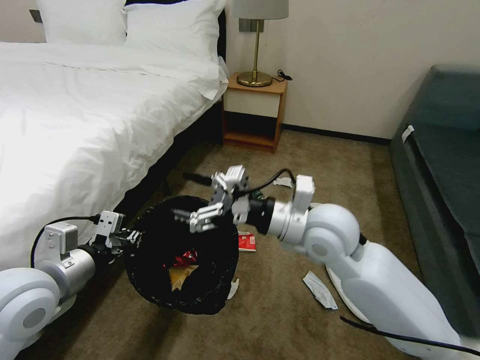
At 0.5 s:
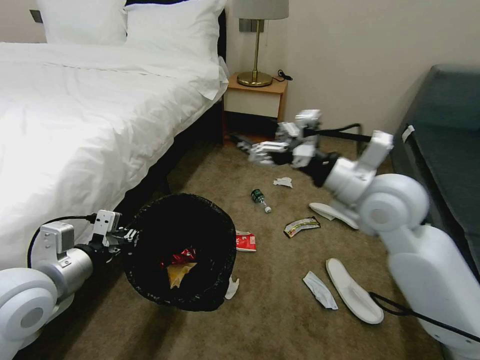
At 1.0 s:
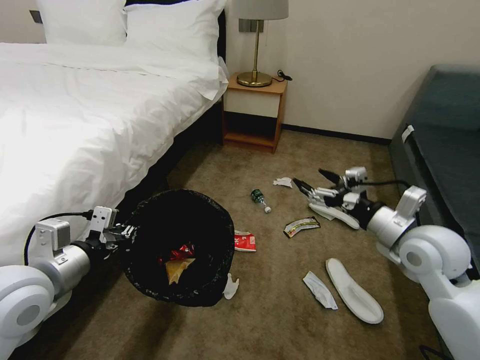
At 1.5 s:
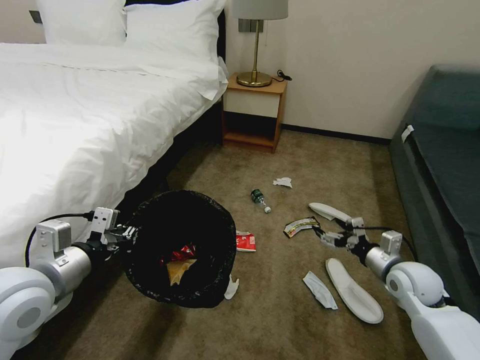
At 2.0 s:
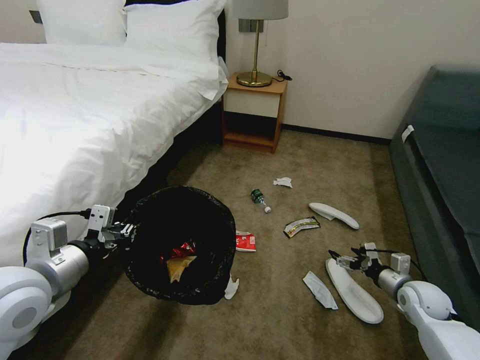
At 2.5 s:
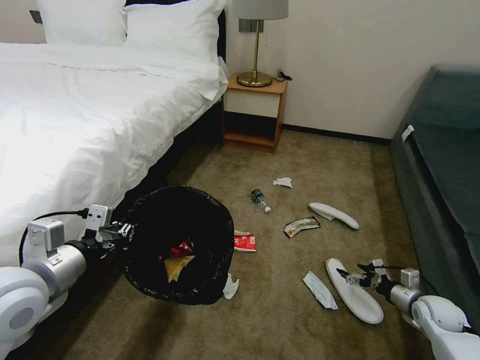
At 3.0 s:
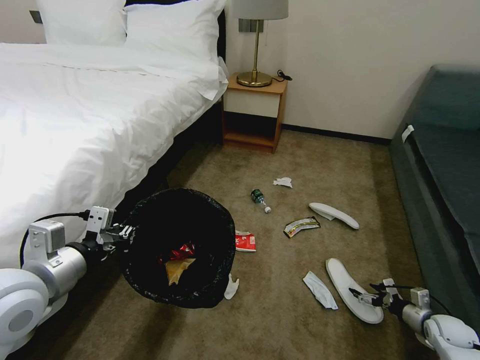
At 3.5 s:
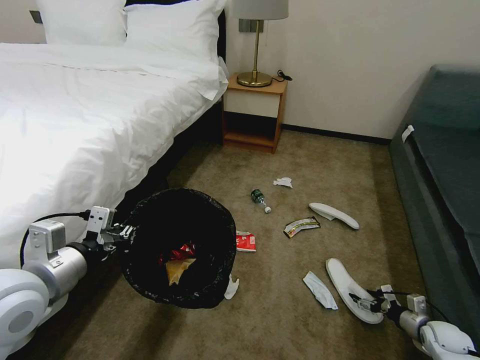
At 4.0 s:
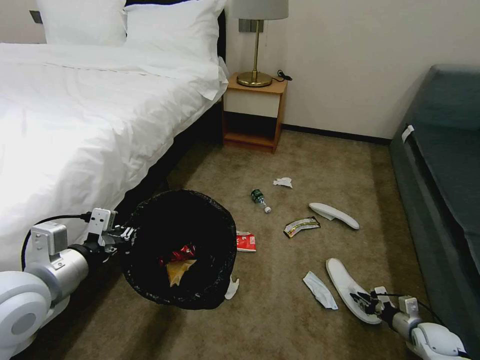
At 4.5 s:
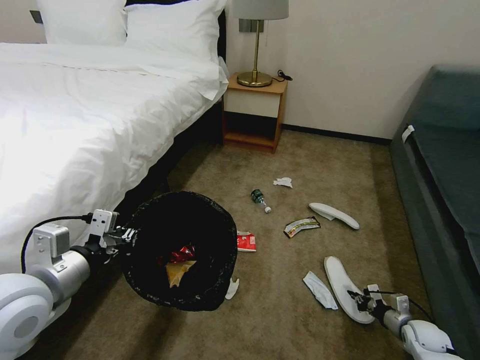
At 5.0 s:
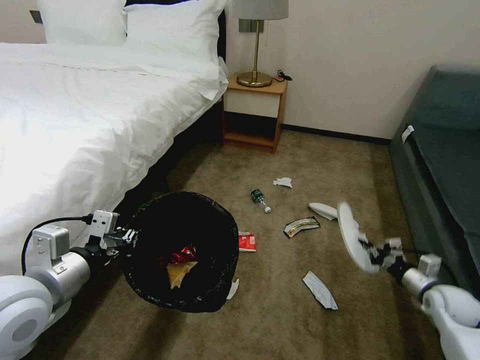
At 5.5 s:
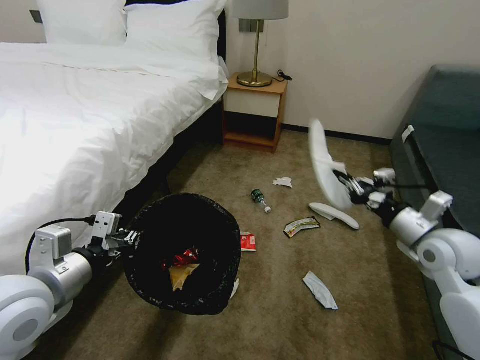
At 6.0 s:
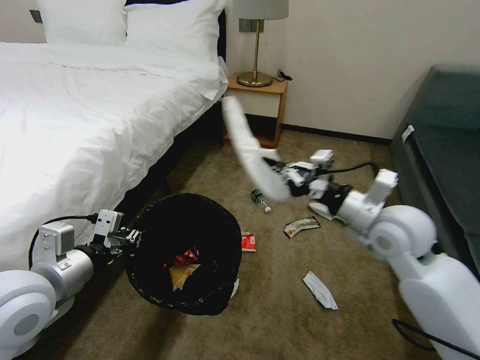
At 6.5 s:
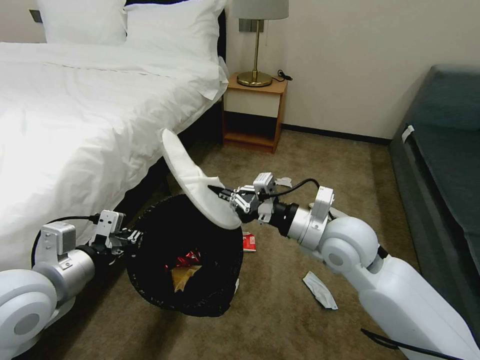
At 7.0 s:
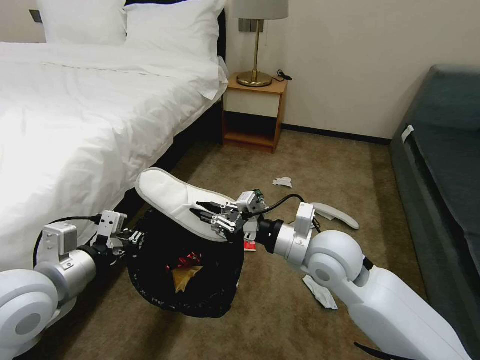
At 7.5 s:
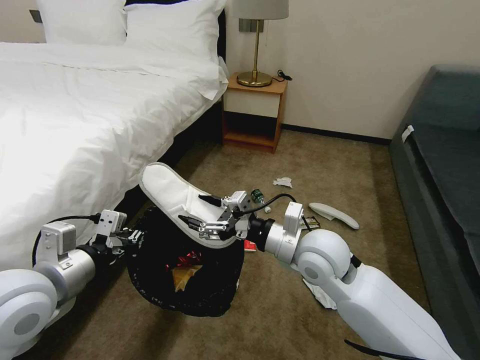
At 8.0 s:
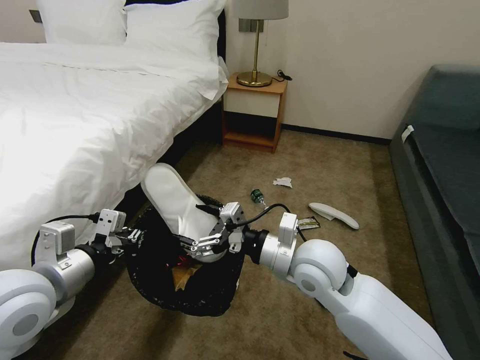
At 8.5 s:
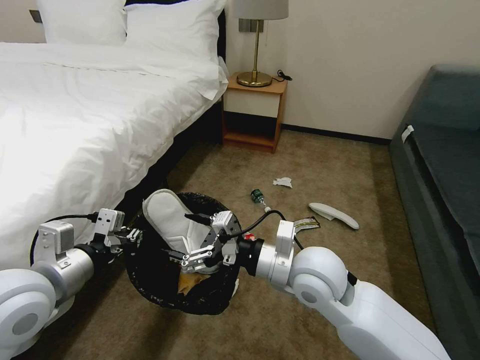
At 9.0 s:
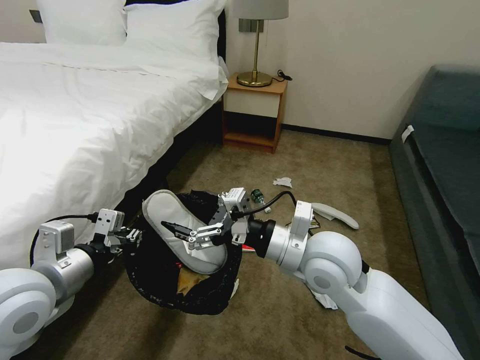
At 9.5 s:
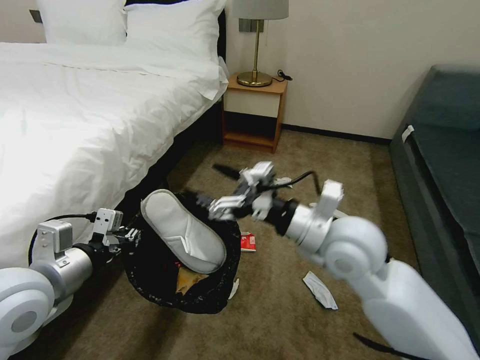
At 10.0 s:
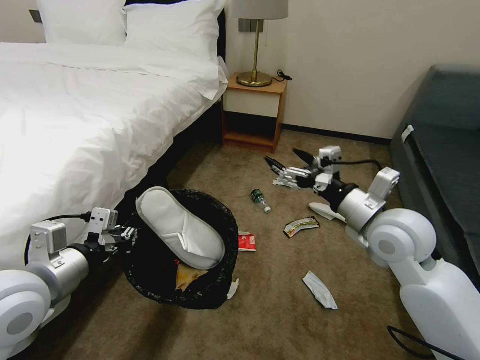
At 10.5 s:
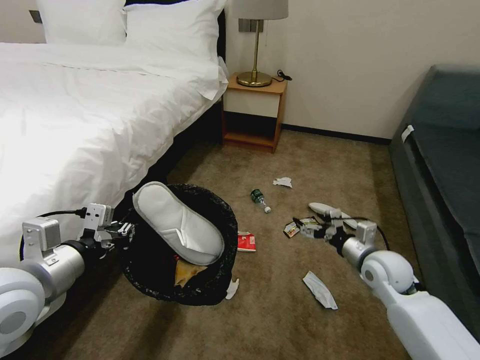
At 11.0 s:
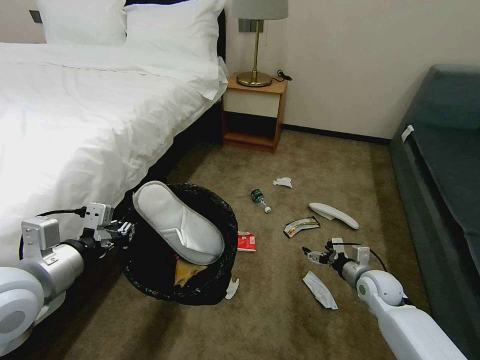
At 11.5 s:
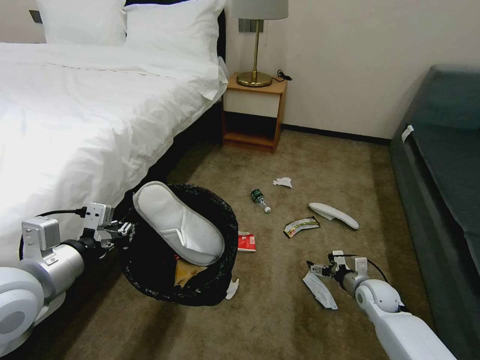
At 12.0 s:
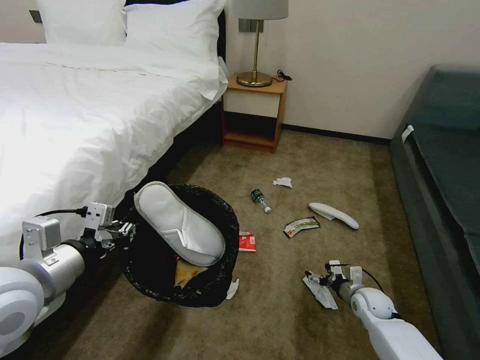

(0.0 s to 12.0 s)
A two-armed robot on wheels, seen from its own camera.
Task of the whole recording: Pick up the trash bin, then pick up the garbage on the floor and place it into the trash bin.
0.0 s - 2.0 s: The right gripper heads to the right and downward, covering some 40 cm.
2.0 s - 4.0 s: The right gripper moves downward, to the right and backward, approximately 15 cm, and closes.
4.0 s - 6.0 s: The right gripper shifts about 40 cm upward and to the left.
6.0 s - 8.0 s: The right gripper moves to the left and downward, about 15 cm, and opens its fingers.
8.0 s - 10.0 s: The right gripper travels to the right by about 15 cm.
10.0 s - 12.0 s: The right gripper moves downward, roughly 35 cm.

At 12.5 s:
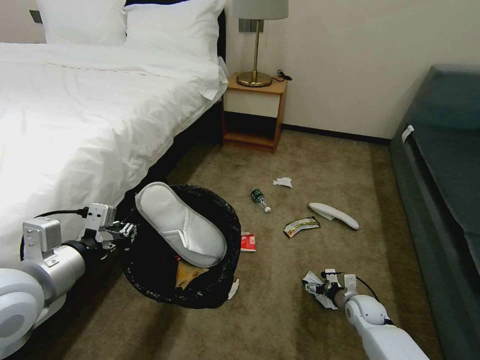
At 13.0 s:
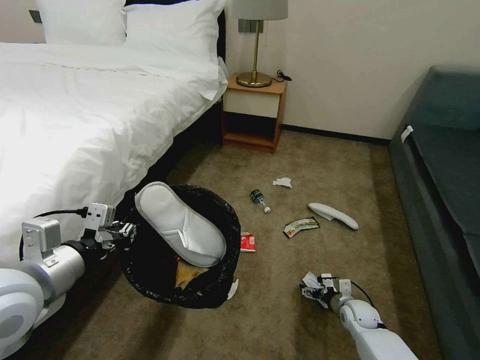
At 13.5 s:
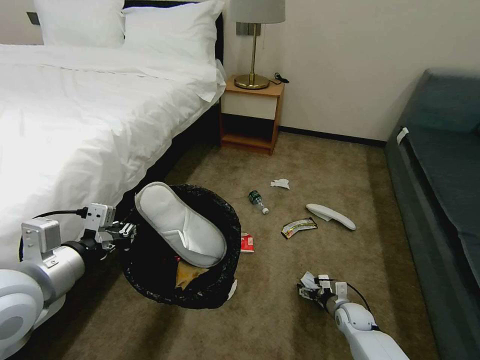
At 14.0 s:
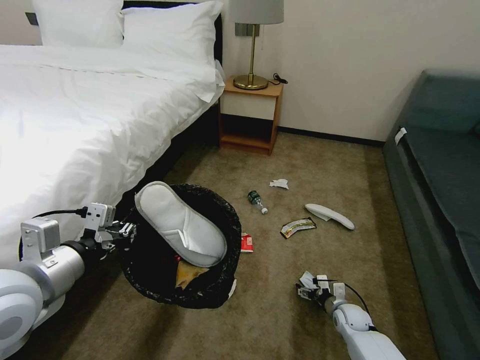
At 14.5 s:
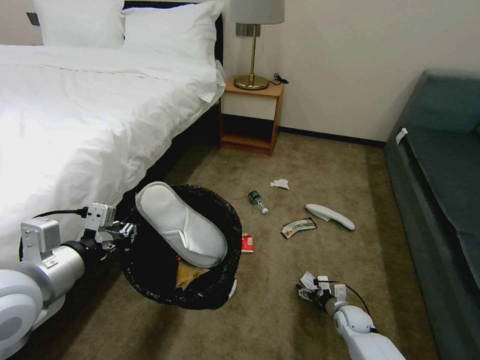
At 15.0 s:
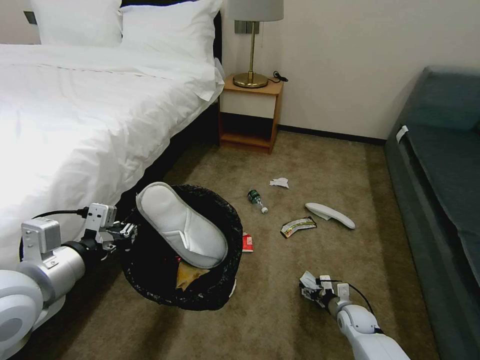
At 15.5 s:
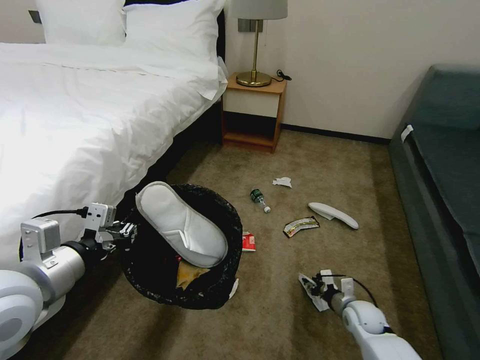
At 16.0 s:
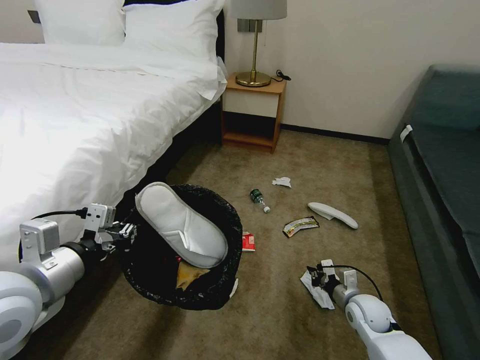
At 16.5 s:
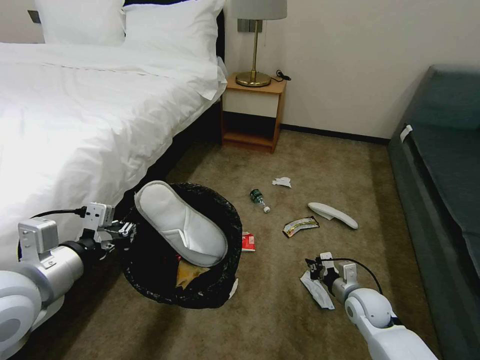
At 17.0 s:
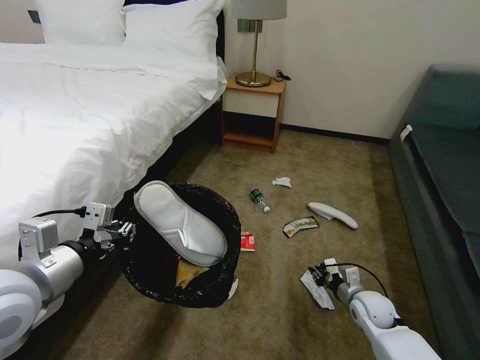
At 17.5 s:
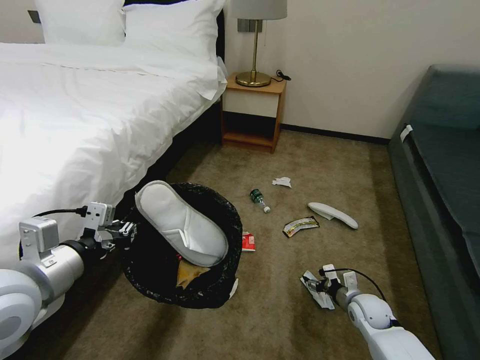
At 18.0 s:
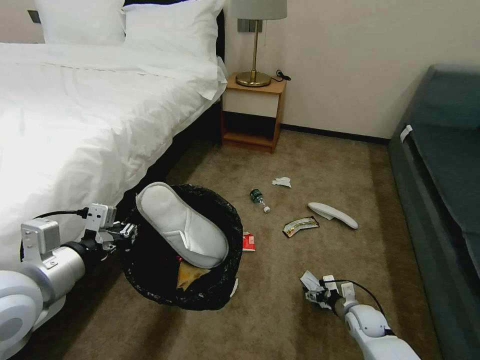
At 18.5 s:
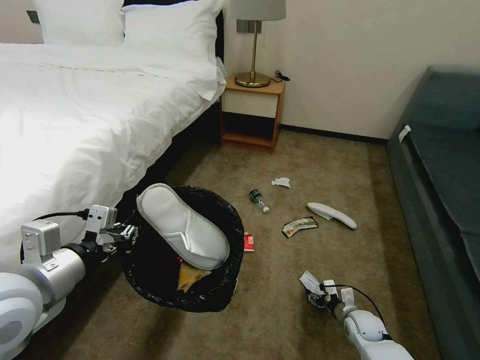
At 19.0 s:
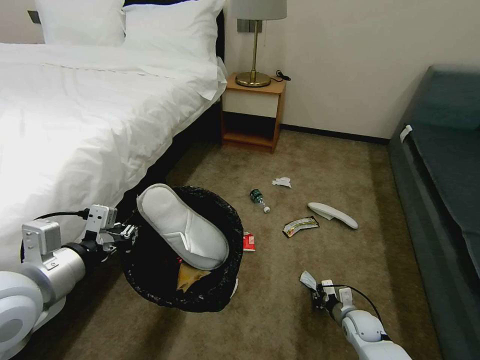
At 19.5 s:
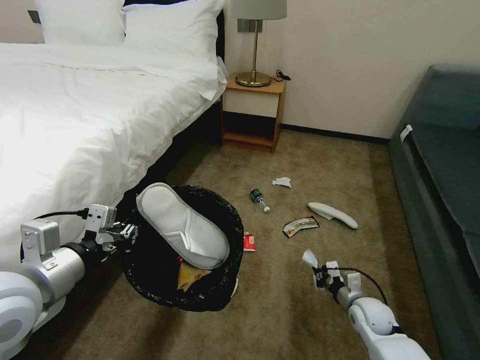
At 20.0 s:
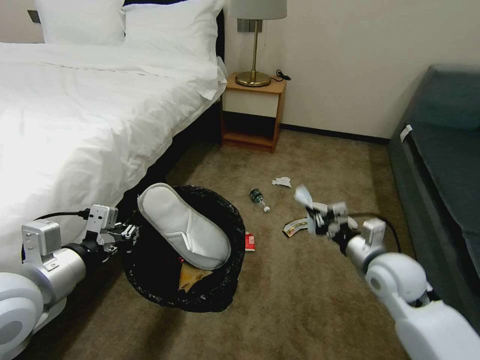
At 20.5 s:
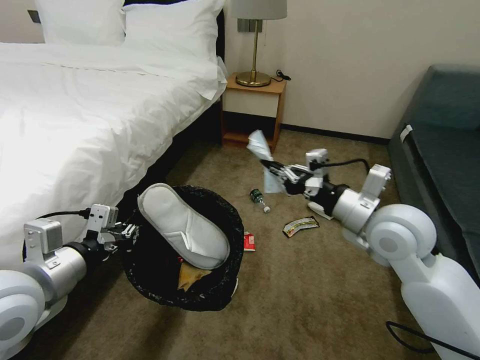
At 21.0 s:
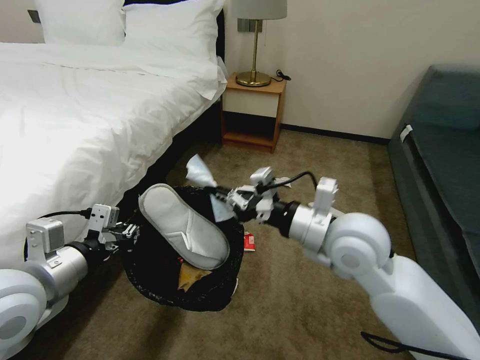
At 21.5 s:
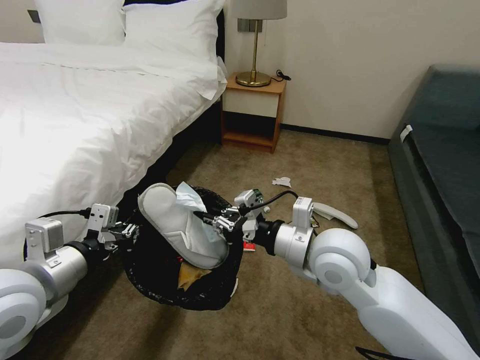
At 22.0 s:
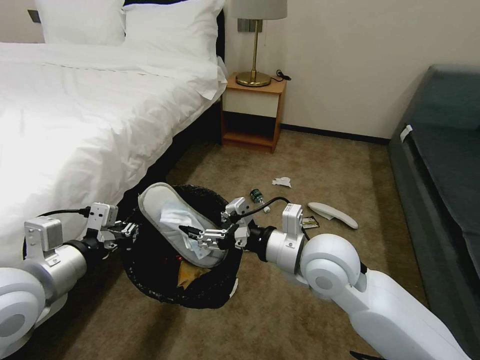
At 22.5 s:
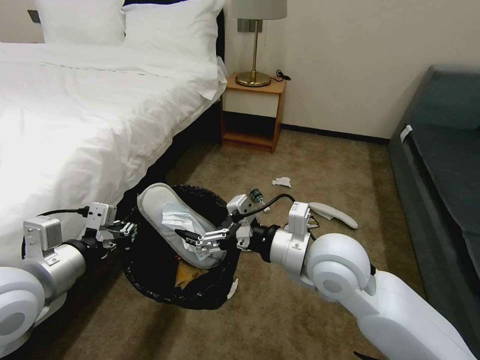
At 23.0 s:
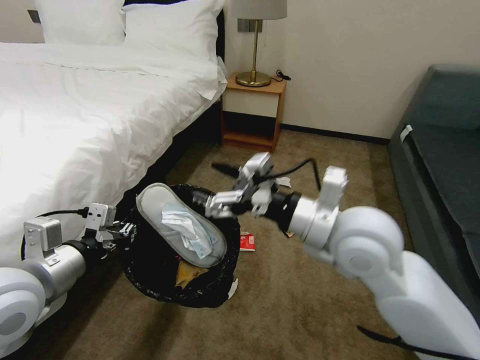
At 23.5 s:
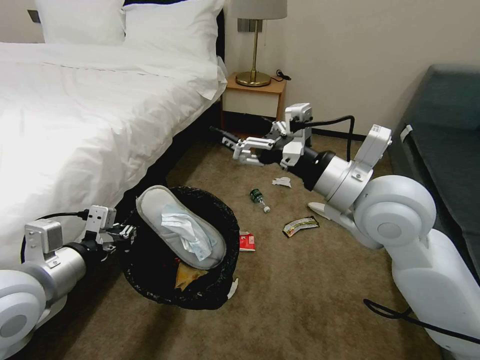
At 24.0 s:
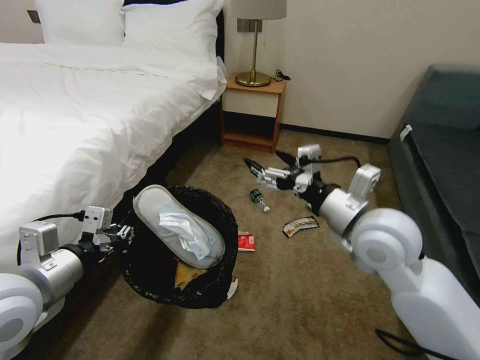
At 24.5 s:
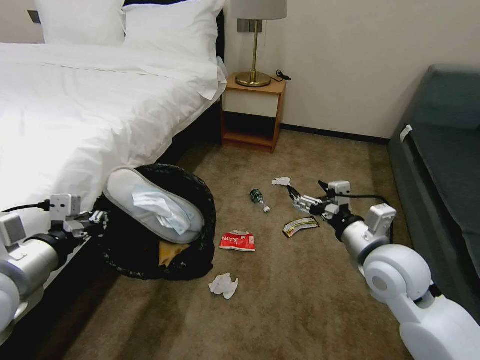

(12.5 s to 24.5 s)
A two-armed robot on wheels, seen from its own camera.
Task of the whole recording: Pick up the trash bin, then pick up the garbage on the floor and place it into the trash bin.
12.5 s - 14.5 s: The right gripper goes approximately 5 cm downward.
14.5 s - 16.5 s: The right gripper is displaced upward by about 15 cm, and closes its fingers.
16.5 s - 18.5 s: The right gripper shifts about 10 cm downward, and opens its fingers.
18.5 s - 20.5 s: The right gripper goes some 40 cm upward, and closes up.
20.5 s - 22.5 s: The right gripper heads to the left, covering approximately 10 cm, and opens.
22.5 s - 24.5 s: The right gripper travels to the right by approximately 10 cm, and goes upward and returns, about 10 cm each way.

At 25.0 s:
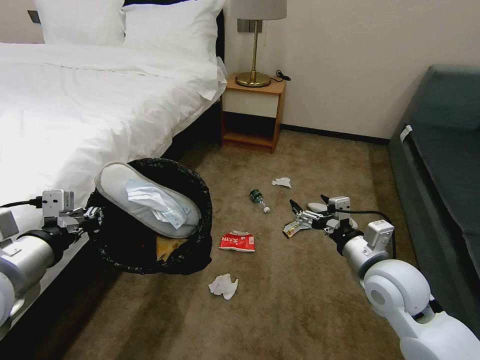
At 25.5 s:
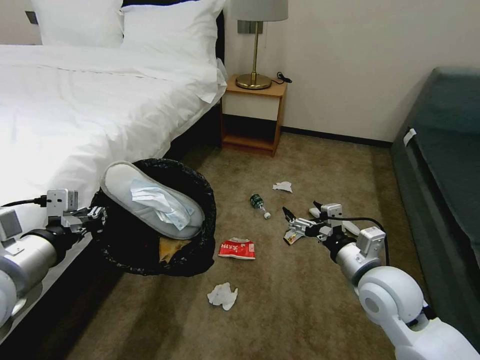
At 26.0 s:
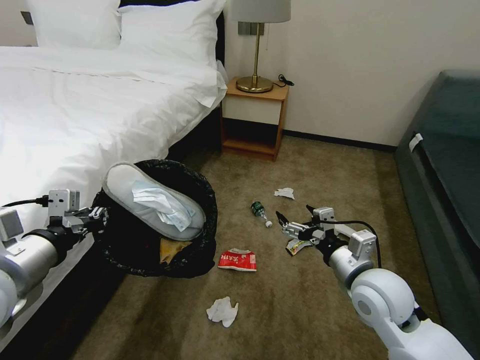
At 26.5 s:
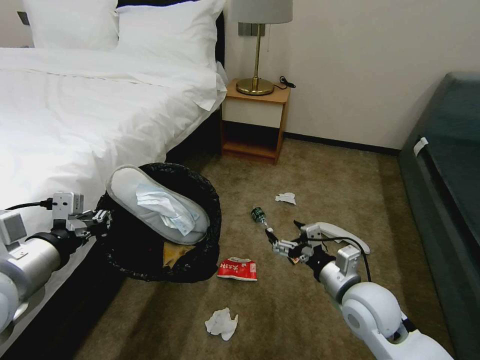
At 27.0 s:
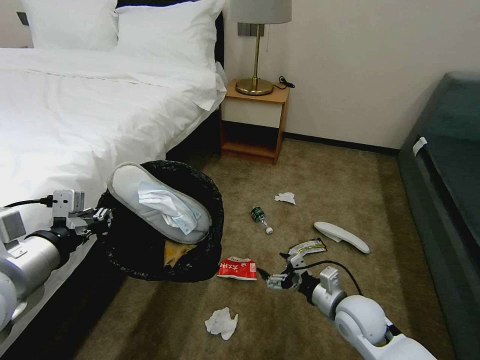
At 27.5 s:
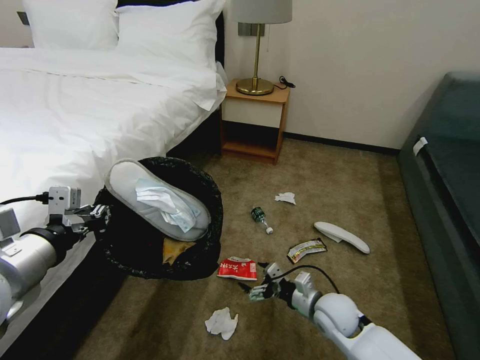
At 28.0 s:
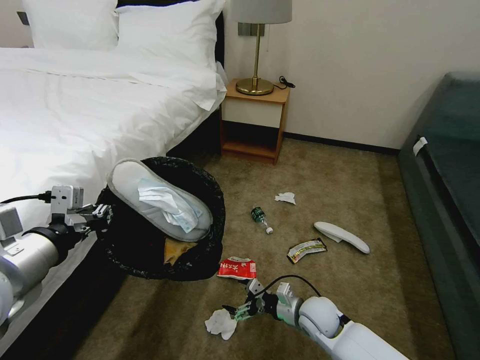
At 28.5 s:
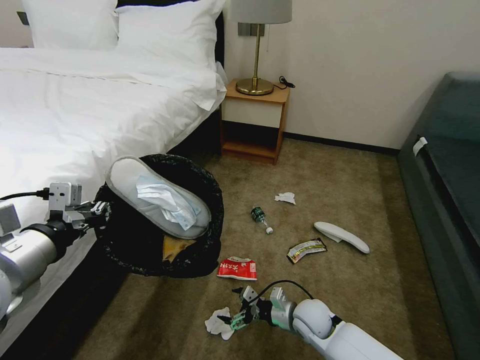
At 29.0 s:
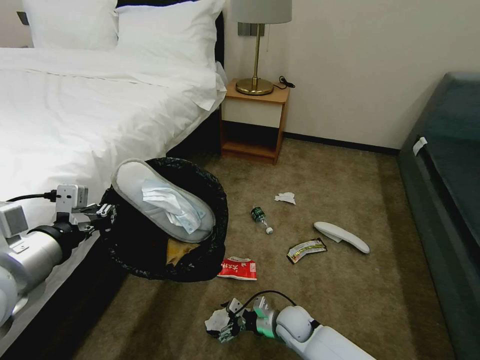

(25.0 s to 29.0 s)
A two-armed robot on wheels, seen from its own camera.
Task of the whole recording: Pick up the trash bin, then pick up the garbage on the floor and place it into the trash bin.
25.0 s - 27.0 s: The right gripper shifts about 15 cm downward.
27.0 s - 29.0 s: The right gripper moves downward and to the left, some 20 cm.
